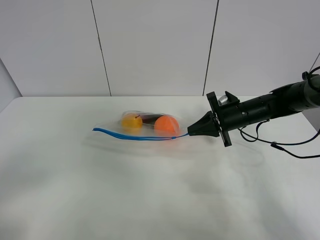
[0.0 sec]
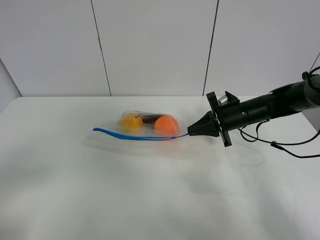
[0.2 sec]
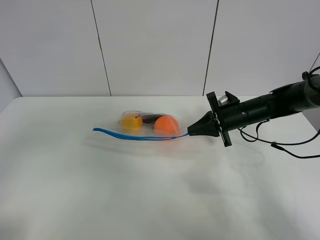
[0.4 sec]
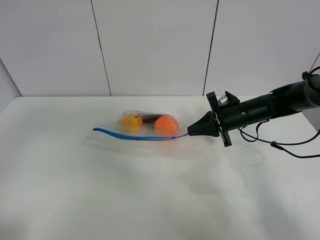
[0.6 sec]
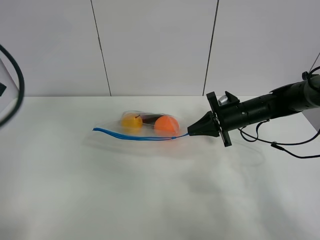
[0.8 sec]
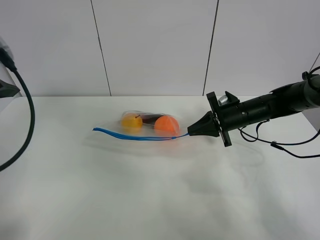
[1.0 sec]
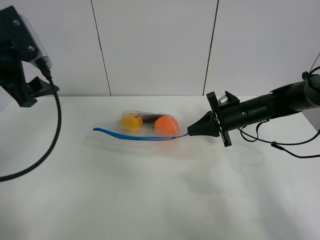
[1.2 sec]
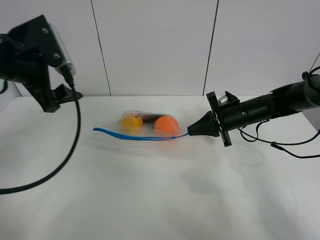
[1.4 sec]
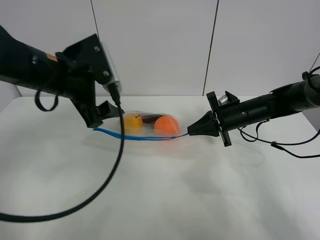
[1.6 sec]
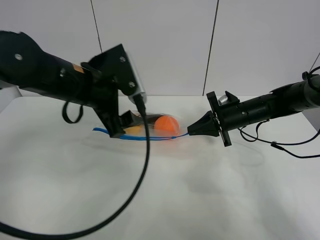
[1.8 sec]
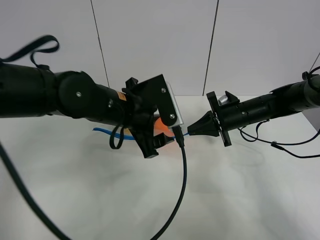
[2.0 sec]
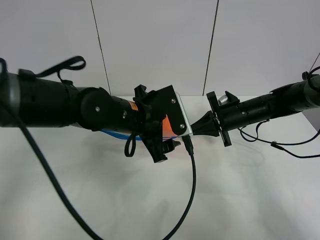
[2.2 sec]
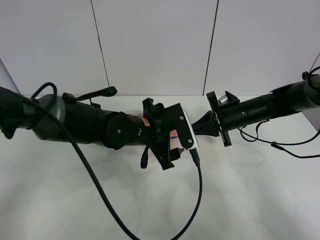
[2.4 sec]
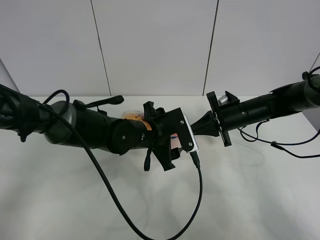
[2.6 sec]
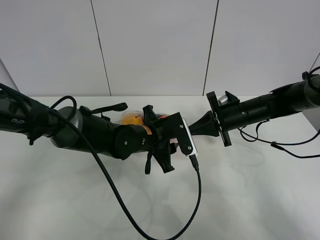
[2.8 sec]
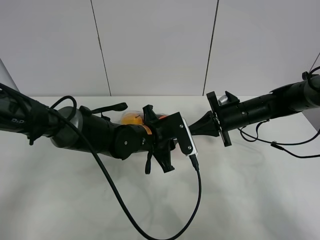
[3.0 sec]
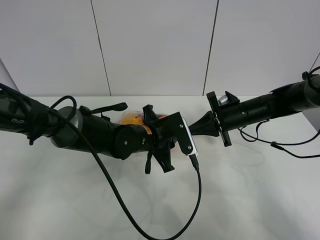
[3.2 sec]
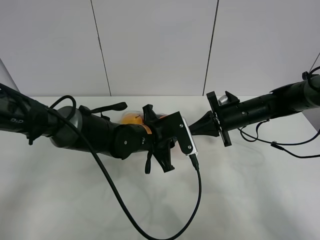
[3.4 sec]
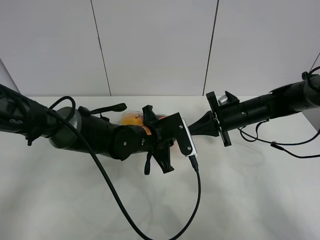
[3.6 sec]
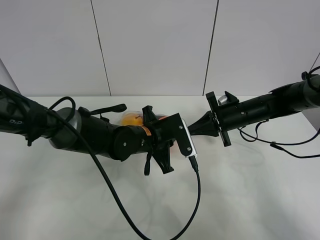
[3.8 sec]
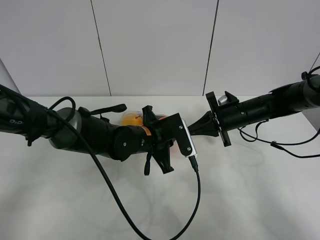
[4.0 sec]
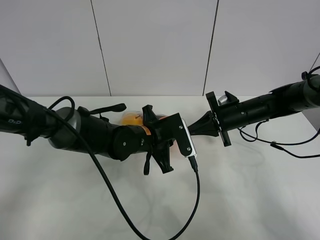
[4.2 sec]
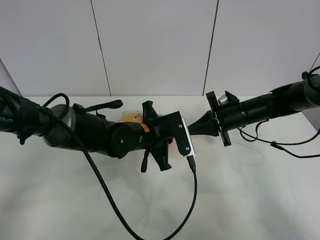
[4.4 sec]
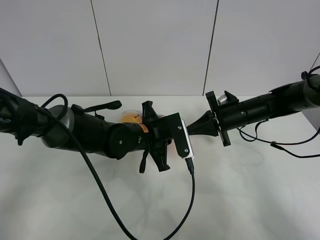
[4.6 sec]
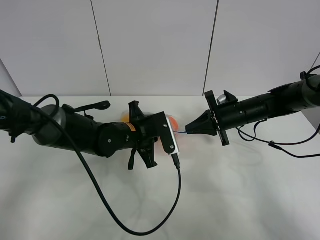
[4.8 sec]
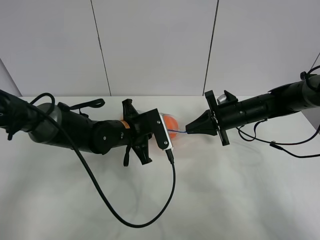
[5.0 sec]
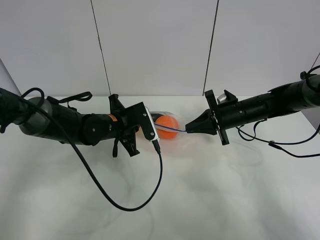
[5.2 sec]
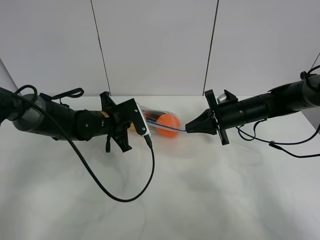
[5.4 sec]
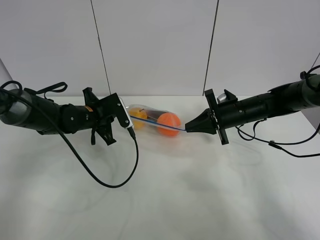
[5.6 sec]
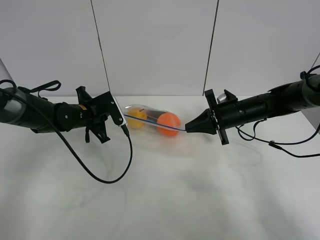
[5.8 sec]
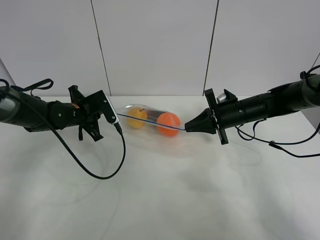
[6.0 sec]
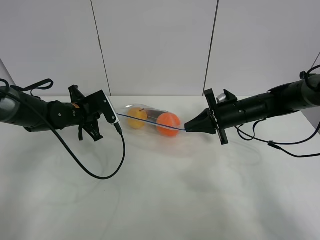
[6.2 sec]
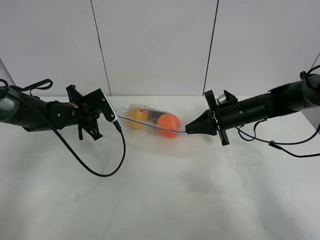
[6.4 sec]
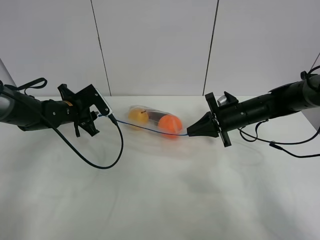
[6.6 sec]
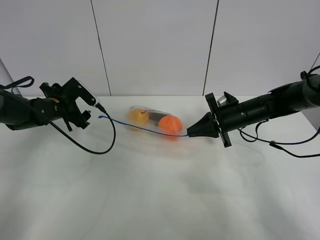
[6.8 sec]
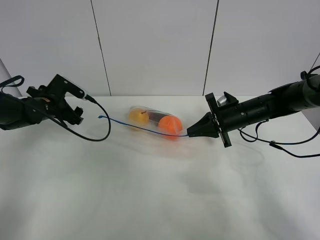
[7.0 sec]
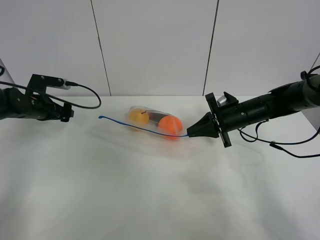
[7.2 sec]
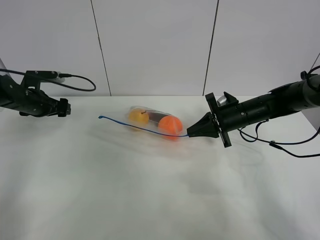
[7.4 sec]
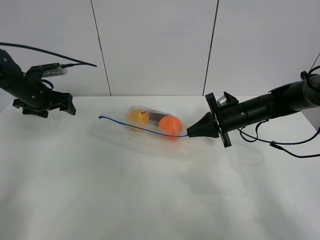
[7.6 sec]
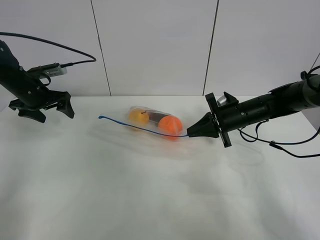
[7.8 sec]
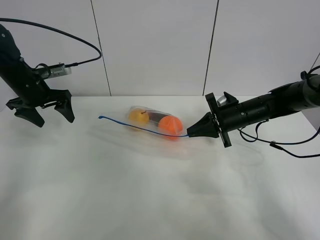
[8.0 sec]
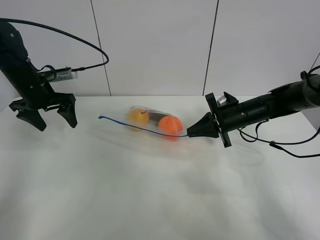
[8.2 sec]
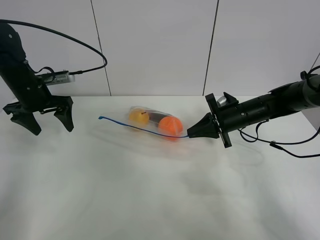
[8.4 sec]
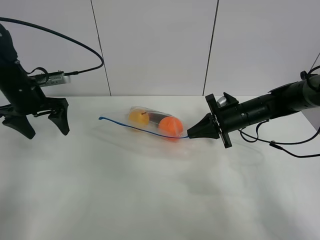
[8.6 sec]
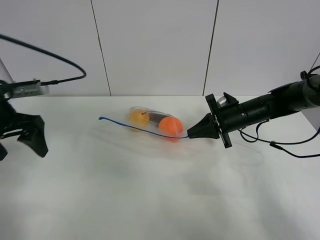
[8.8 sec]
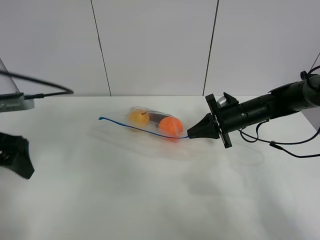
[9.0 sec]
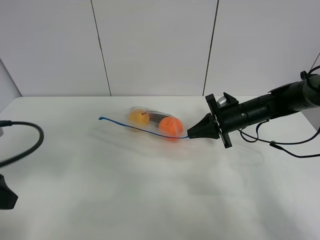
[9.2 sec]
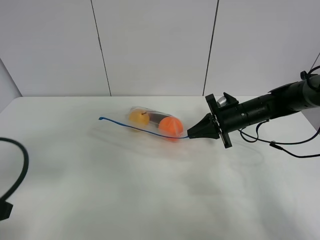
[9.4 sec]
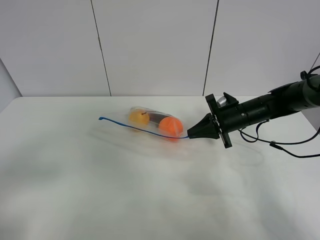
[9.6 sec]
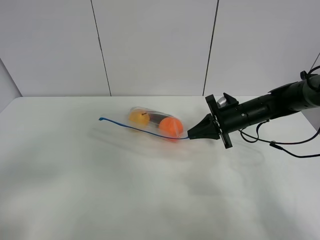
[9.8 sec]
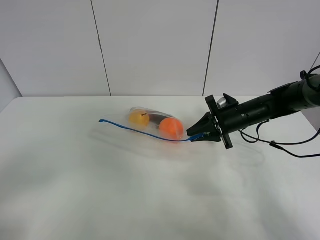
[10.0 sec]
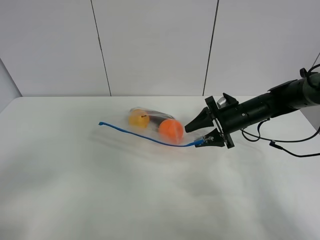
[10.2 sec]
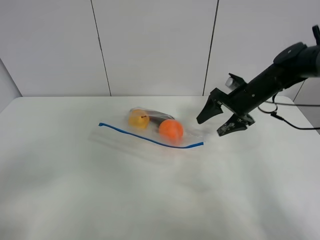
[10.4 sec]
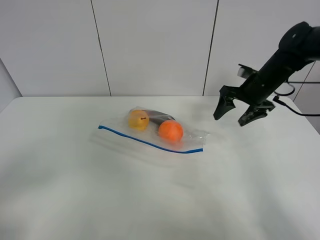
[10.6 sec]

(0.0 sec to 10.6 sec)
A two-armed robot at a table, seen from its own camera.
Step, 0.0 sec - 6.6 sec: Pull the fruit bag with left gripper.
0.0 sec - 1.6 sec: The left gripper shifts about 30 cm forward and to the right.
1.6 sec - 3.0 sec: The left gripper is displaced downward and to the right by about 20 cm, and closes up.
3.0 sec - 4.6 sec: There are only small adjustments of the grippers.
4.6 sec - 6.0 sec: The left gripper shifts approximately 20 cm to the left and forward.
6.0 sec - 7.6 sec: The left gripper travels to the left and upward by approximately 15 cm, and opens.
7.6 sec - 9.0 sec: The left gripper heads backward, covering some 20 cm.
9.0 sec - 10.6 sec: The right gripper moves upward and to the right, about 10 cm, and opens up, while the left gripper shifts approximately 20 cm backward.

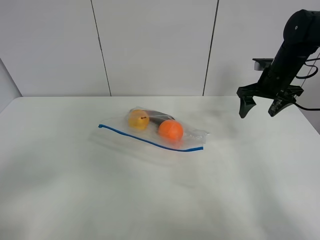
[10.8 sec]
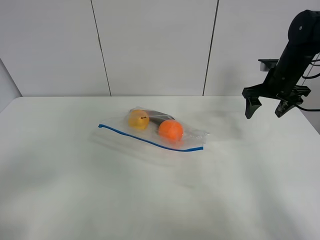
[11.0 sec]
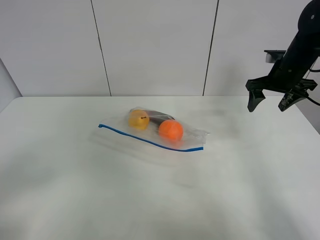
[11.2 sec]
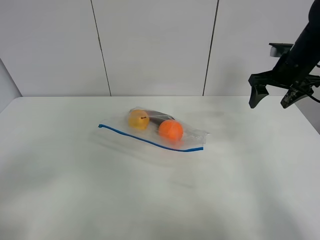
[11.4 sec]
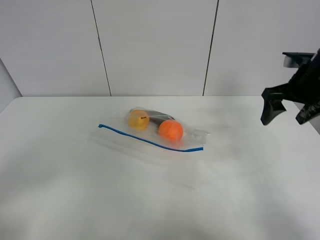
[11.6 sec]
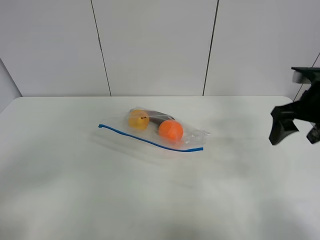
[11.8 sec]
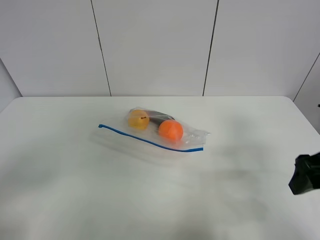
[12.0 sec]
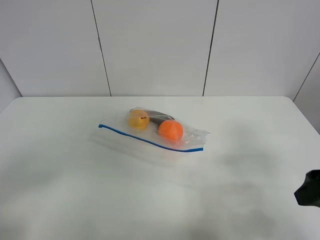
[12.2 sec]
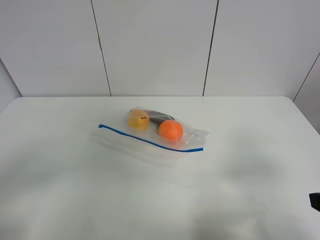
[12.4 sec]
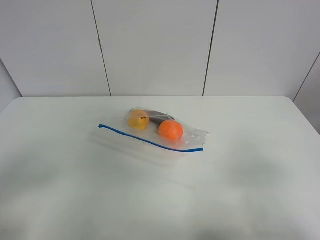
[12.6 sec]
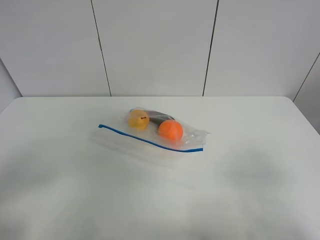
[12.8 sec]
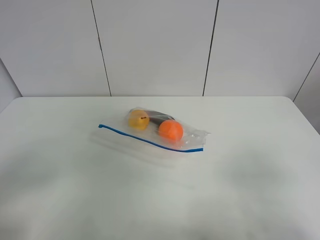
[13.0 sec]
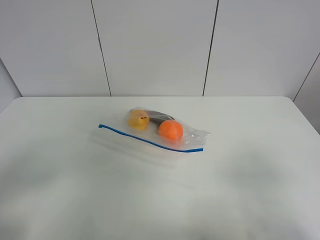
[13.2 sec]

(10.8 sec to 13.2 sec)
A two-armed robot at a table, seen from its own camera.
10.8 sec - 12.0 sec: The right gripper travels backward by about 25 cm.
12.0 sec - 13.2 sec: The right gripper shifts some 15 cm backward.
